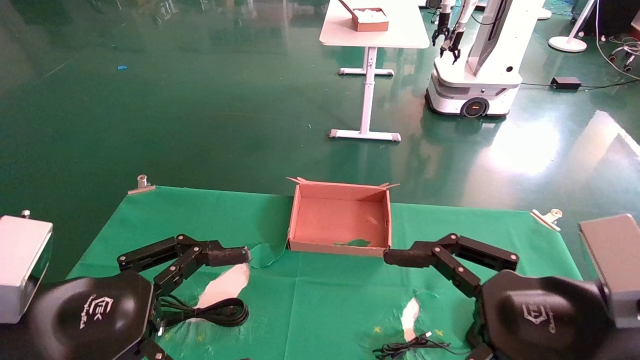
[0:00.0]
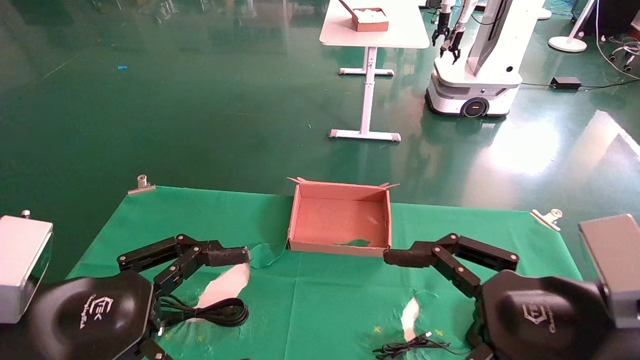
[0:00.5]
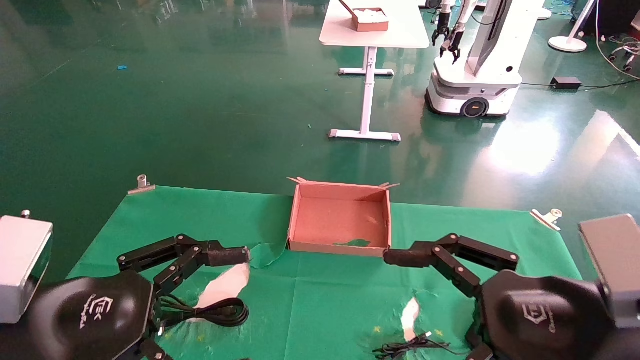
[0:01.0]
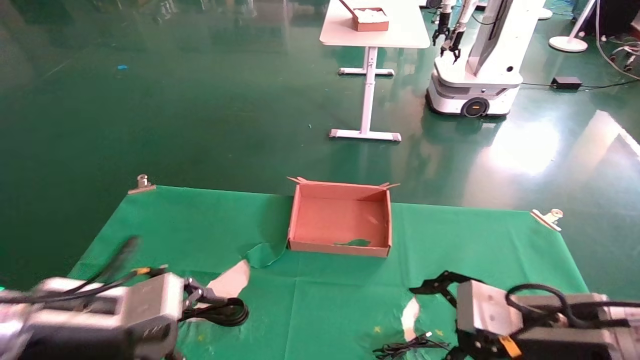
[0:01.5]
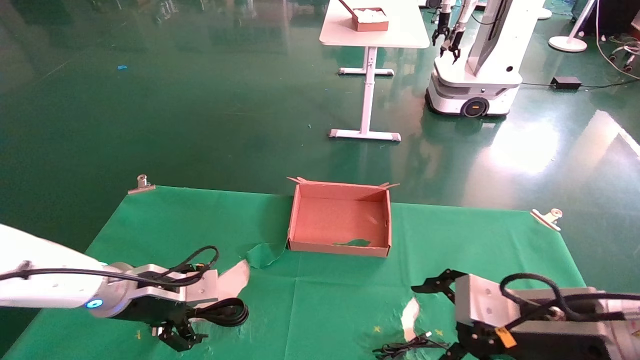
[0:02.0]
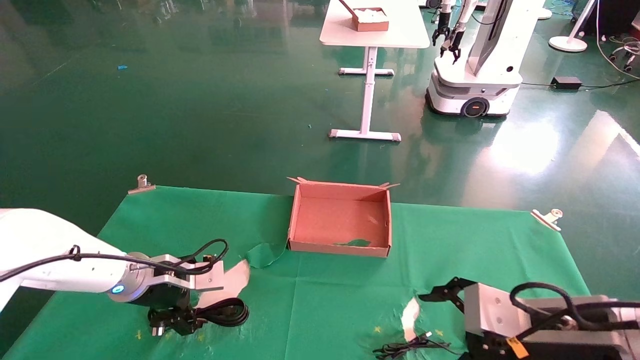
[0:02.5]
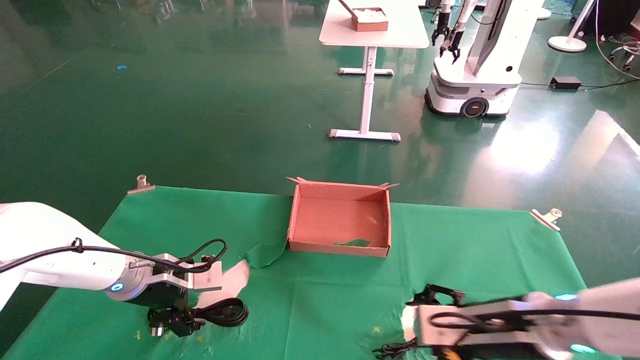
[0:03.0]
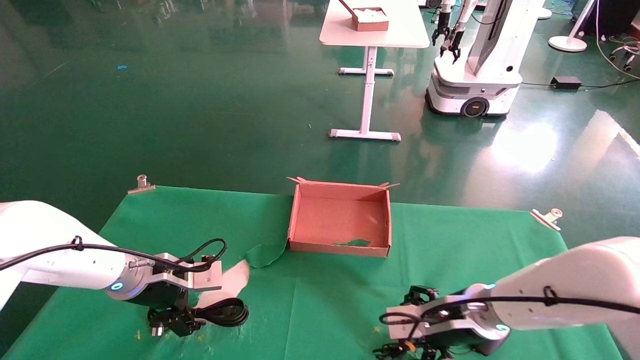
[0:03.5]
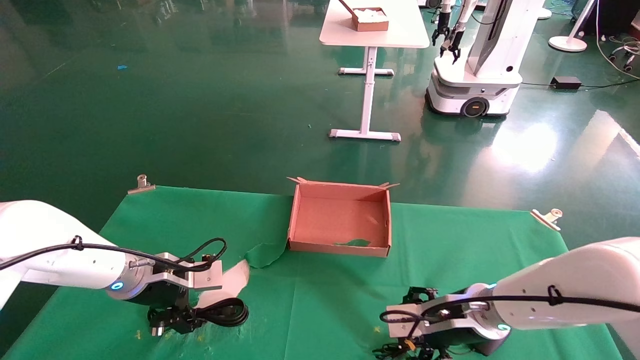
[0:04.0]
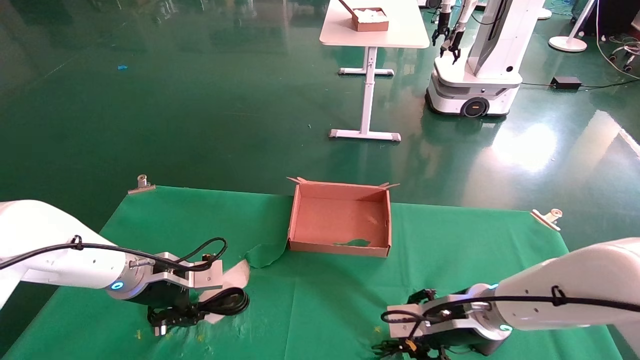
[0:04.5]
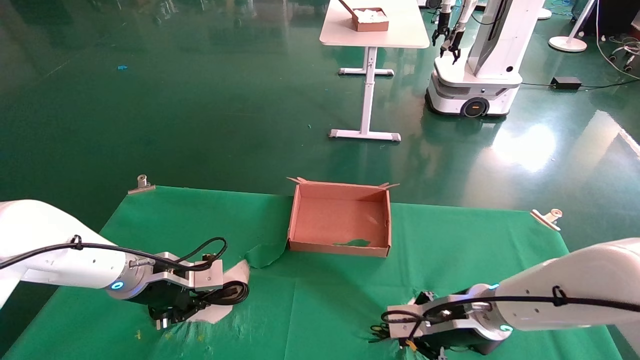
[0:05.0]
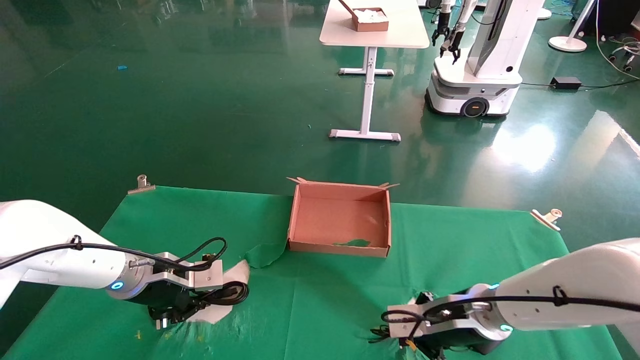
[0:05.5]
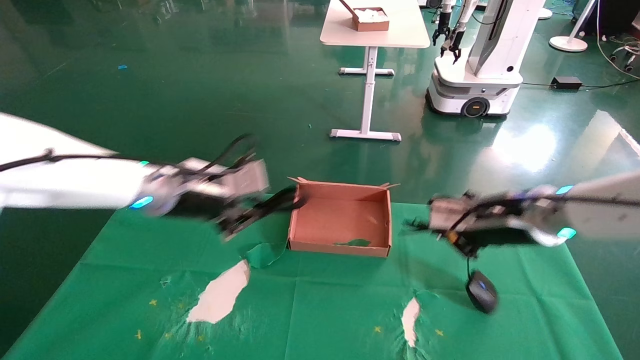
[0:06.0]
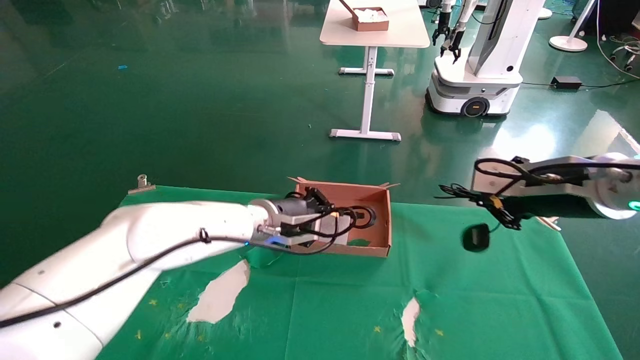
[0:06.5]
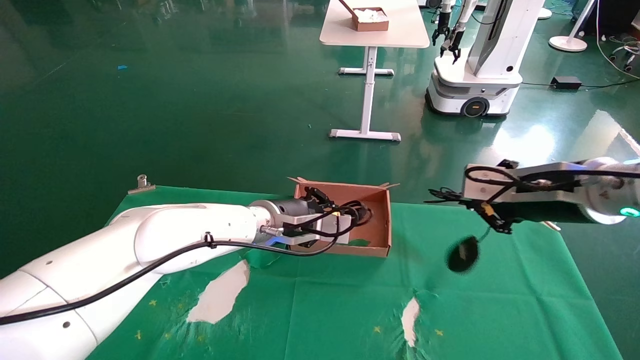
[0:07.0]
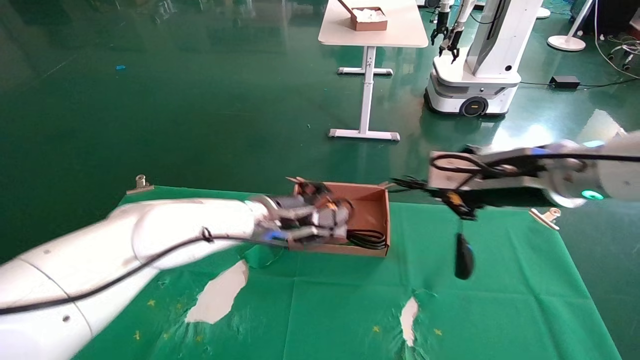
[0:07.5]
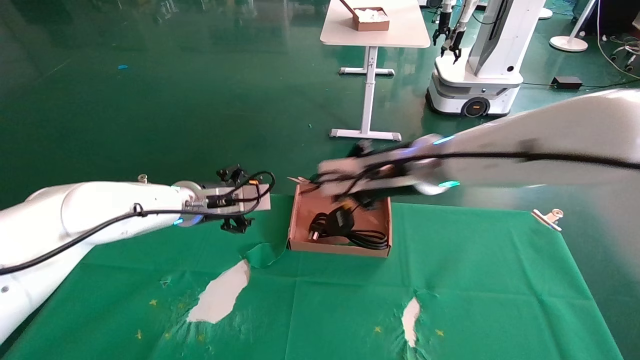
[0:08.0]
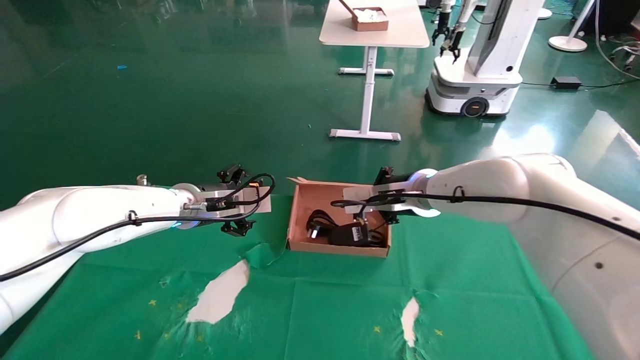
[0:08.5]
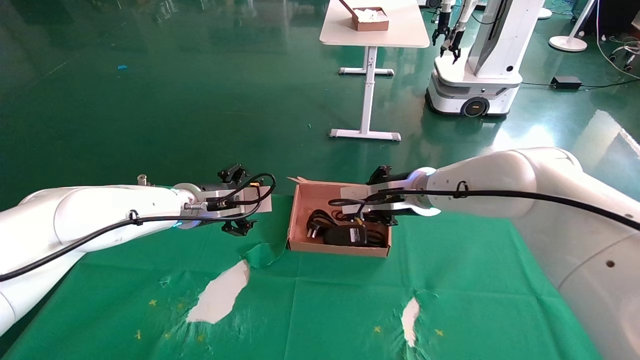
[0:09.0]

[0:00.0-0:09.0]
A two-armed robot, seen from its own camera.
Step, 0:01.5 to 0:06.0: Grab and lift both the mouse and power cord from the accessory packaging area at the same time.
0:00.0 to 0:02.0: The right gripper moves forward and downward, some 10 cm. Meanwhile the left gripper heads forward and downward, covering roughly 20 cm.
0:02.0 to 0:04.5: The right gripper shifts roughly 15 cm forward, downward and to the left, and closes; the left gripper closes its fingers.
0:04.5 to 0:07.0: The left gripper shifts roughly 20 cm to the right, and closes up. The right gripper shifts some 20 cm upward and to the right, and closes up.
0:07.0 to 0:09.0: The left gripper shifts some 10 cm to the left, and opens up; the right gripper moves to the left and forward, approximately 20 cm.

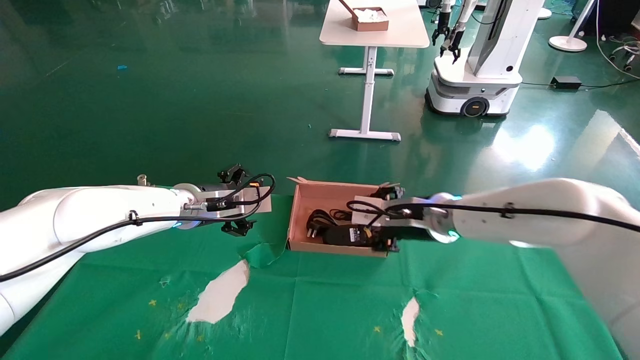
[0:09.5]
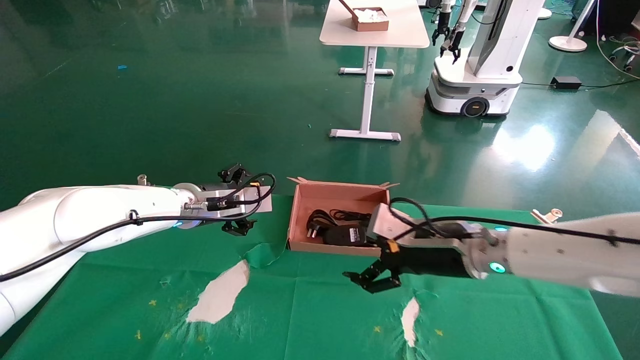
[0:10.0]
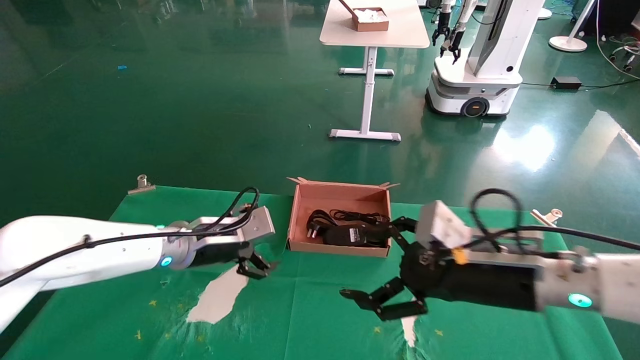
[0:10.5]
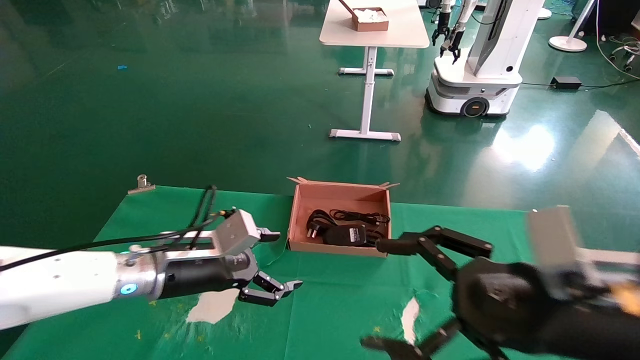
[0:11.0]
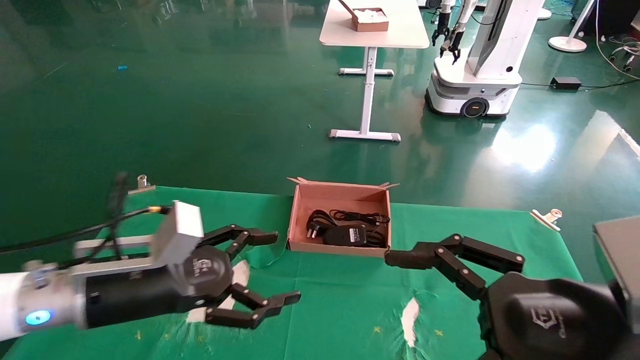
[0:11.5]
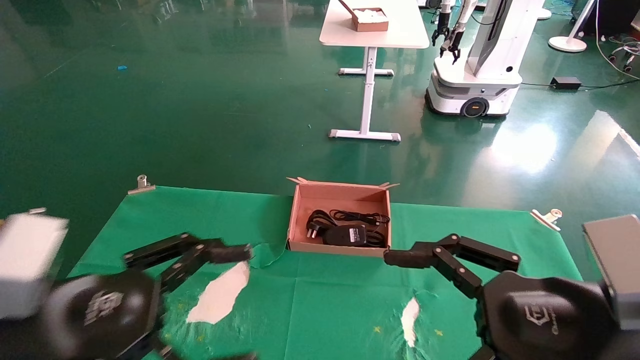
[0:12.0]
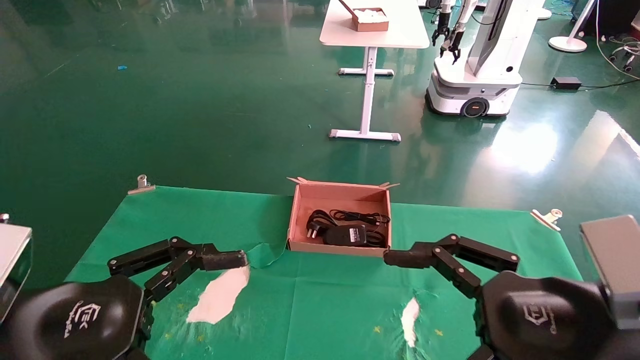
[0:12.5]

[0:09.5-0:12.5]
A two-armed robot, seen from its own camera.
0:09.5 to 0:11.0: The right gripper travels backward and to the right by approximately 25 cm, and opens its fingers. Meanwhile the left gripper is displaced backward and downward by about 10 cm.
0:11.0 to 0:12.5: The left gripper moves backward, about 20 cm.
